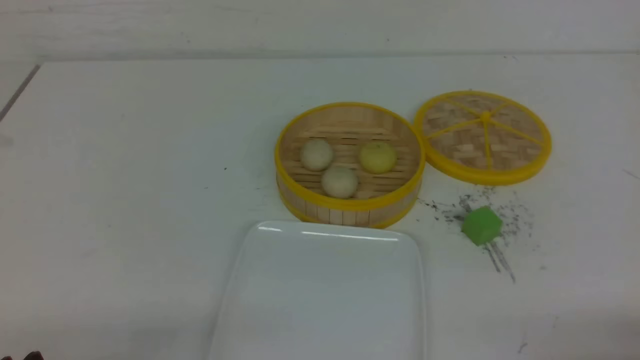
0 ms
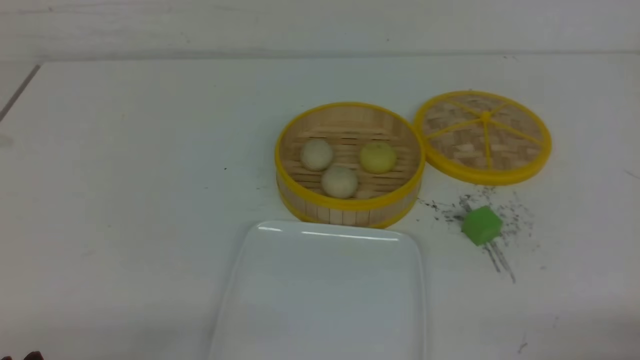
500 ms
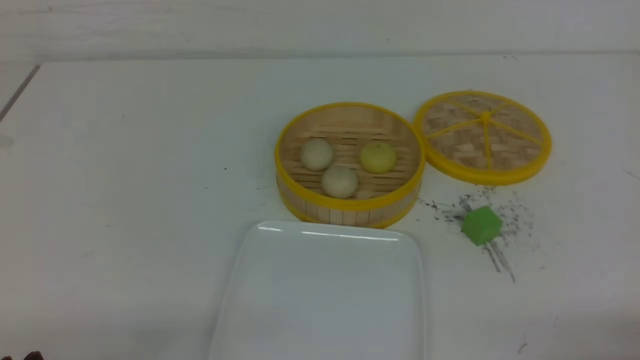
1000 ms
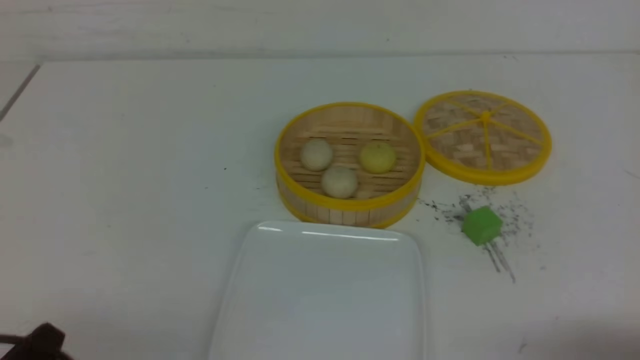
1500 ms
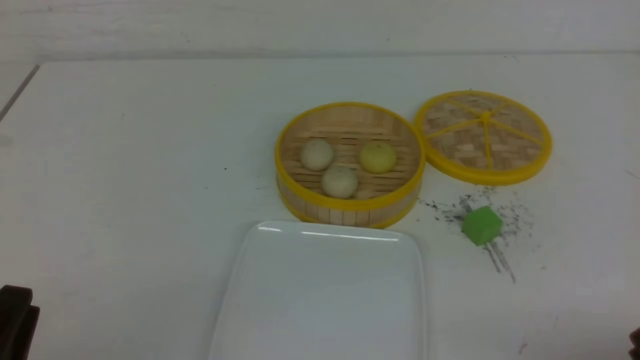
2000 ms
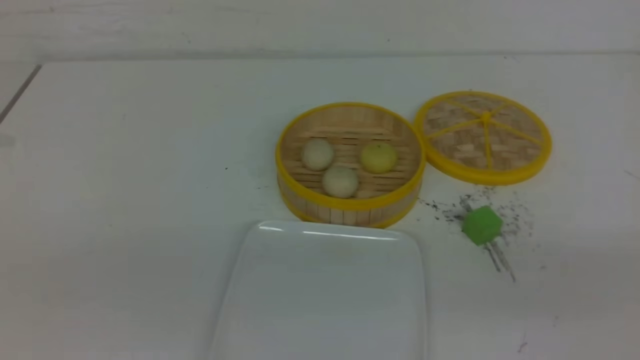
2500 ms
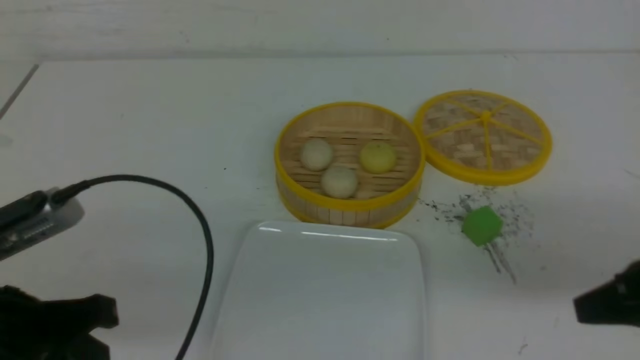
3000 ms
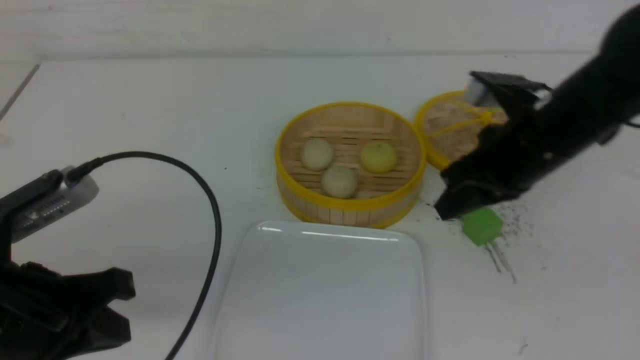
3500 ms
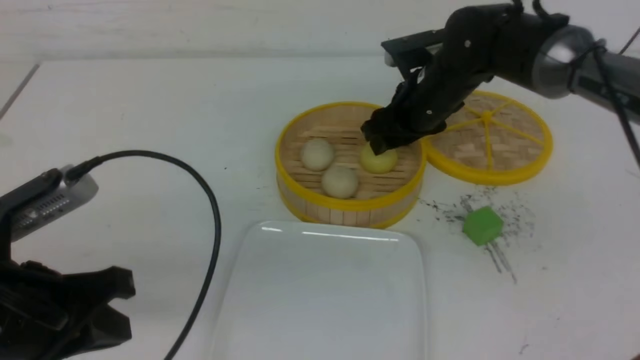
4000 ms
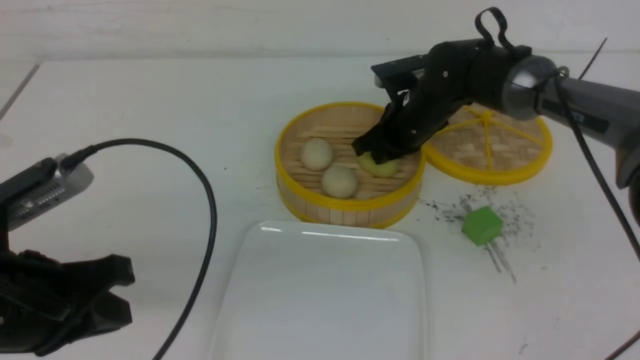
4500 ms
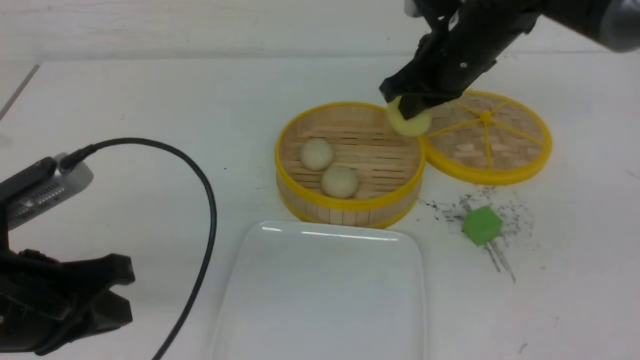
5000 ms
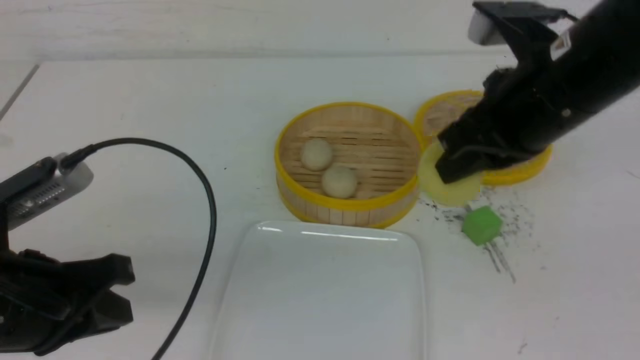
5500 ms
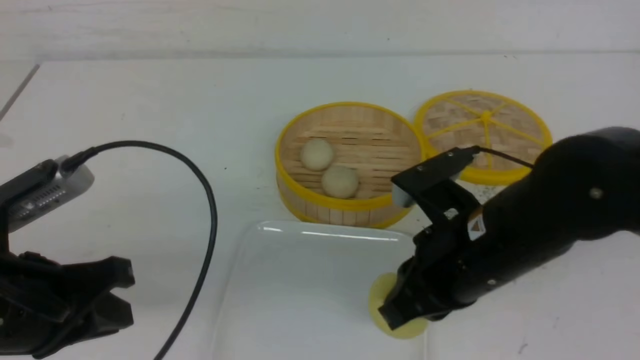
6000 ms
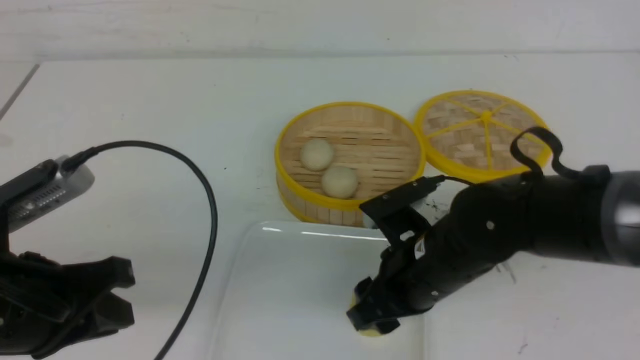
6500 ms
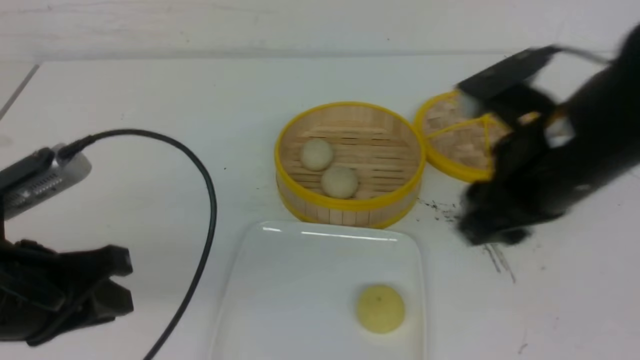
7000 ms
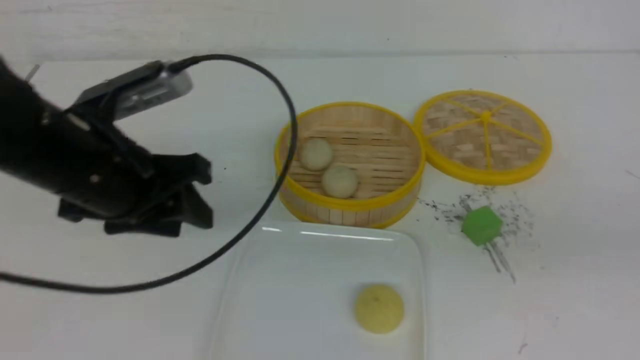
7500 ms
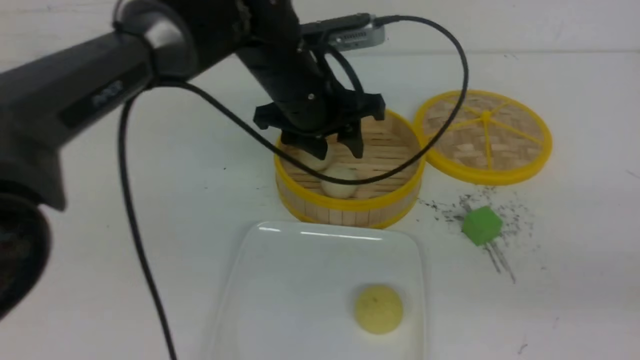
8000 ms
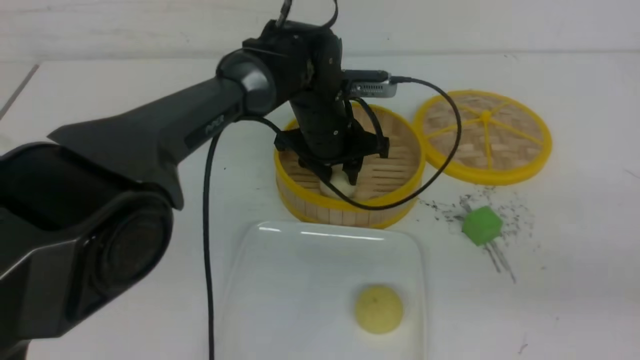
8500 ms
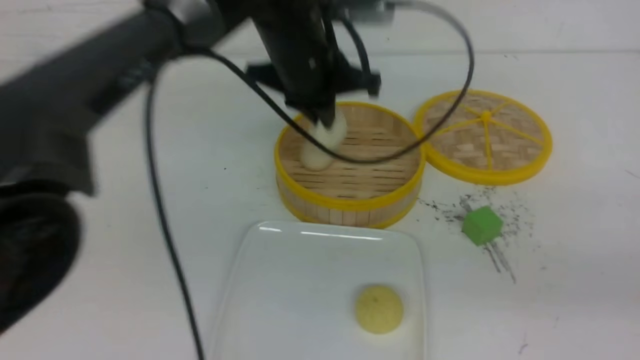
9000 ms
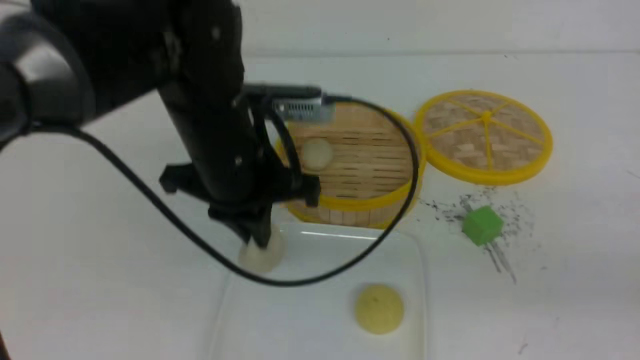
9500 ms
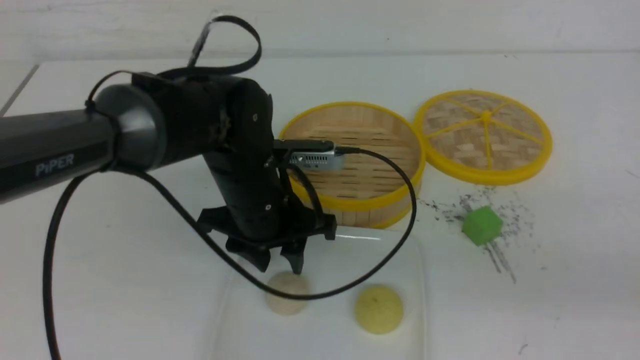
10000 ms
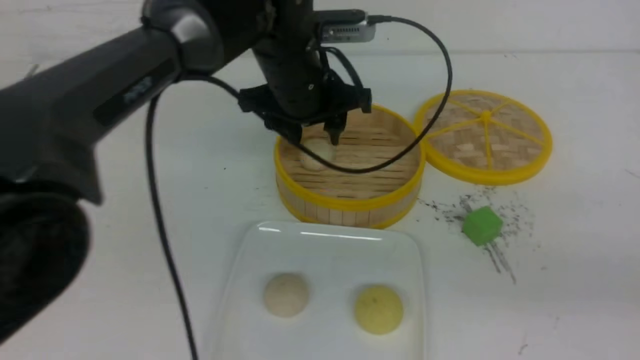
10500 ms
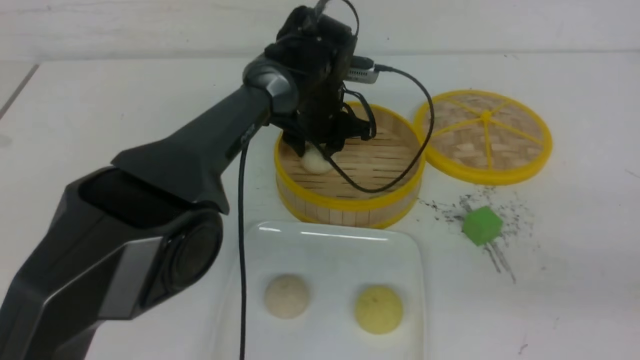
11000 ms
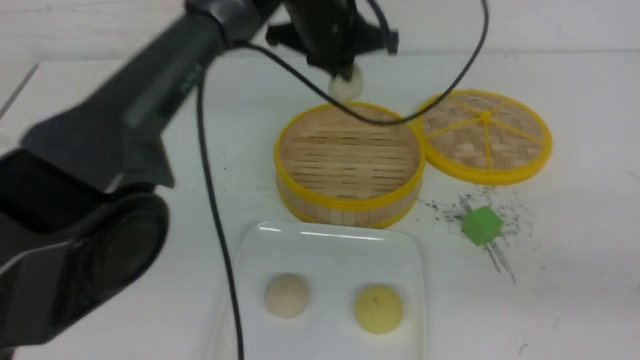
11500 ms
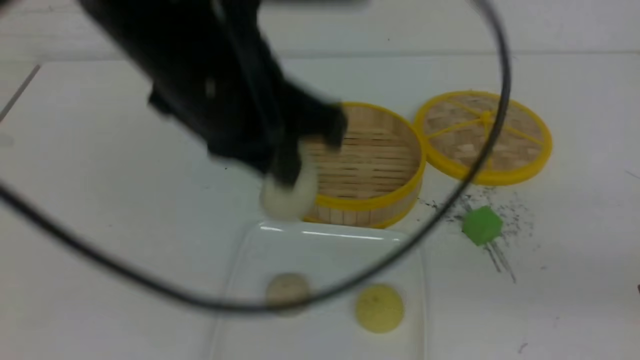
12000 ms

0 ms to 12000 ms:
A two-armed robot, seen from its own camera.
Step, 0 ms to 4500 ms: use the right arm to grab the steamed stuffed bun that is closest to it.
Step, 5000 ms to 6500 ms: use the right arm to put the steamed stuffed bun into the plate.
Step, 7000 ms to 8500 ms: use the left arm to grab the steamed stuffed bun that is closest to it.
Step, 9000 ms to 9500 ms: use the left arm to put the steamed stuffed bun into the plate.
Step, 10000 ms to 11000 ms: use the left arm to grab the steamed stuffed bun that is closest to it.
2000 ms to 4000 ms: The left gripper moves forward and upward, roughly 10 cm, and closes its fingers. Meanwhile the right gripper moves forward and to the left, approximately 40 cm, and opens up.
4000 ms to 6000 ms: The right gripper moves backward, about 20 cm, and closes.
6000 ms to 8000 ms: The left gripper shifts some 30 cm forward and to the right, and opens its fingers. The right gripper is displaced to the right and backward by about 20 cm, and opens, then closes once more.
8000 ms to 10000 ms: The left gripper is displaced backward by roughly 5 cm, and closes, then opens again.
10000 ms to 12000 ms: The left gripper travels upward by some 15 cm, goes forward and returns, roughly 15 cm each way, and closes.

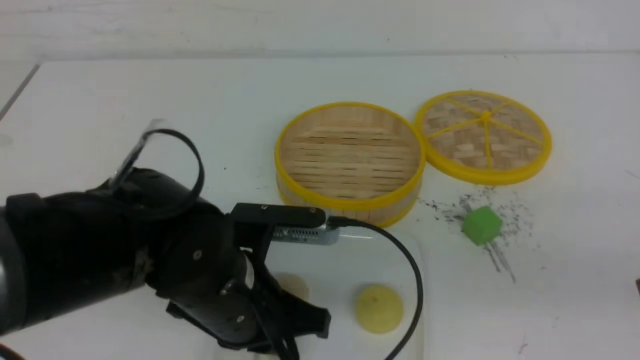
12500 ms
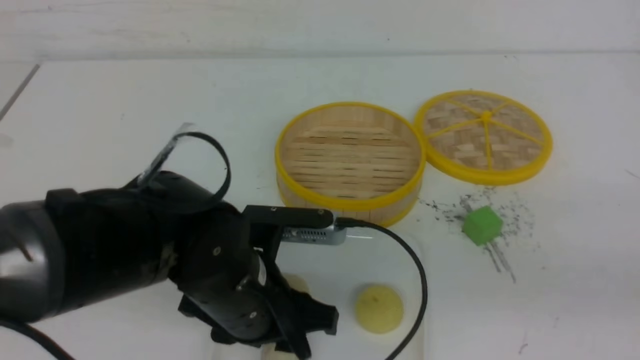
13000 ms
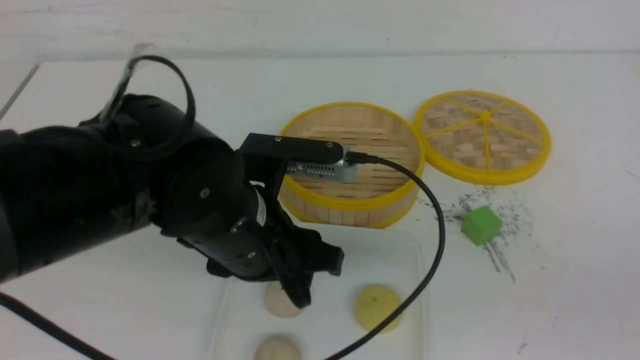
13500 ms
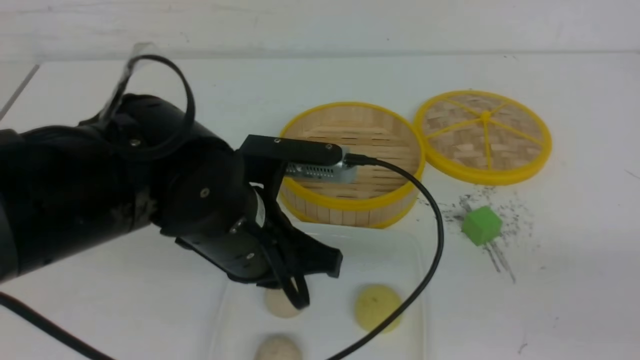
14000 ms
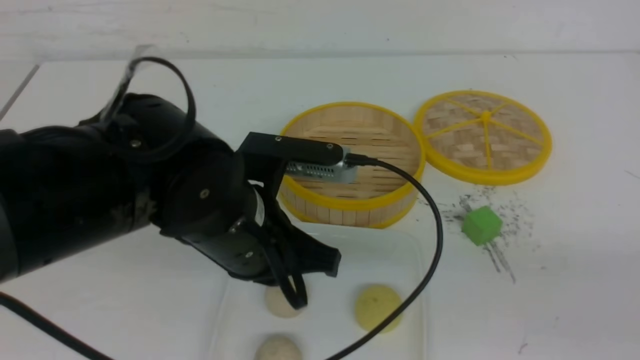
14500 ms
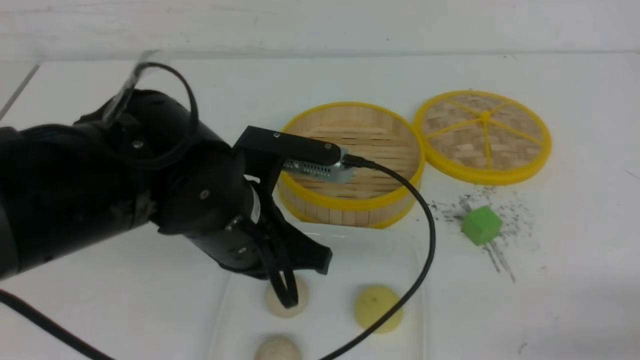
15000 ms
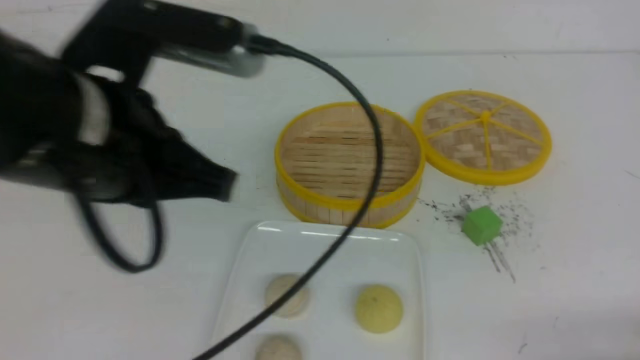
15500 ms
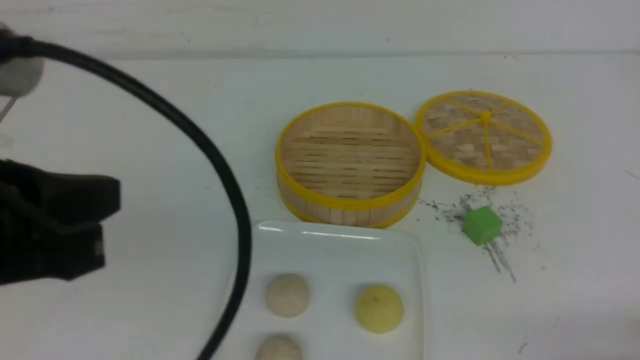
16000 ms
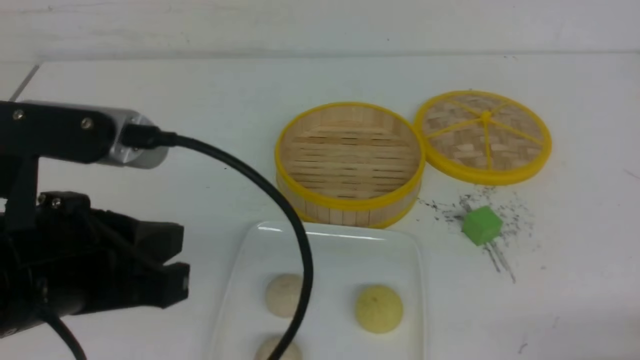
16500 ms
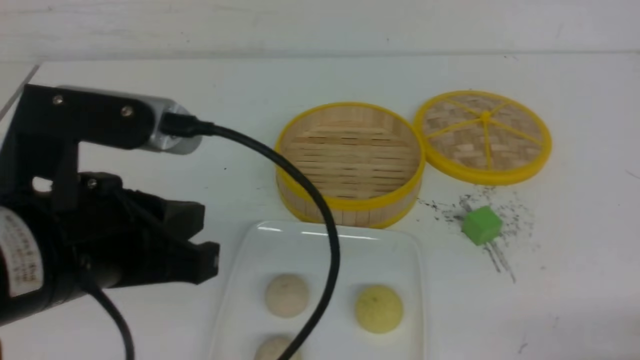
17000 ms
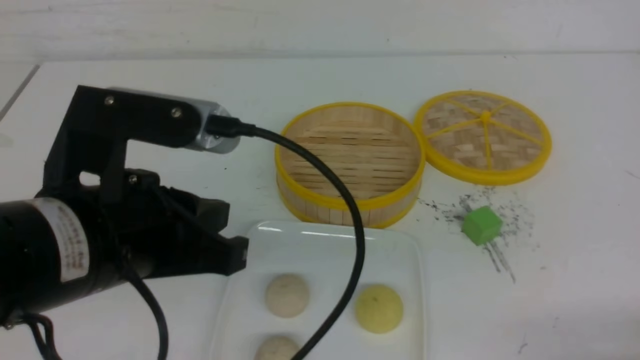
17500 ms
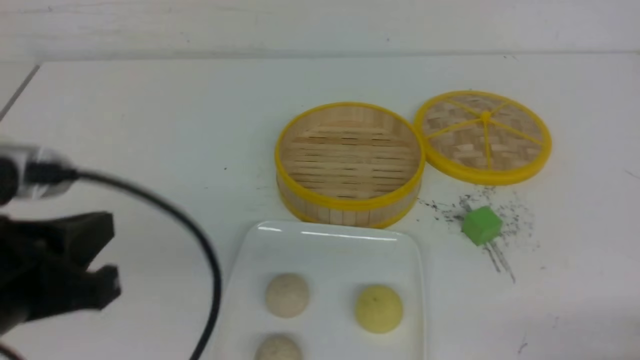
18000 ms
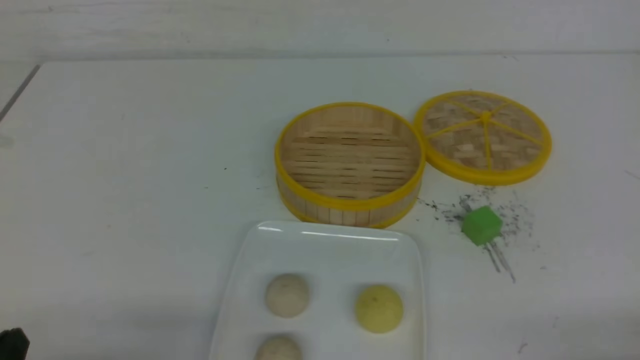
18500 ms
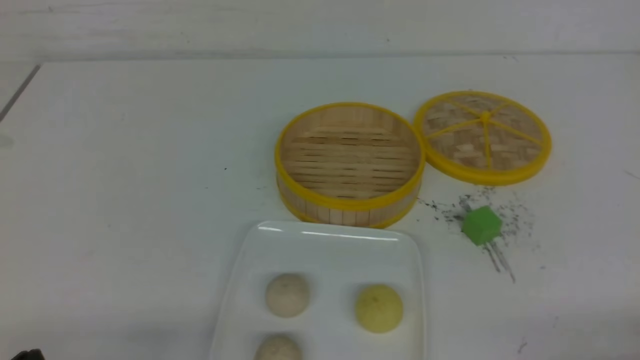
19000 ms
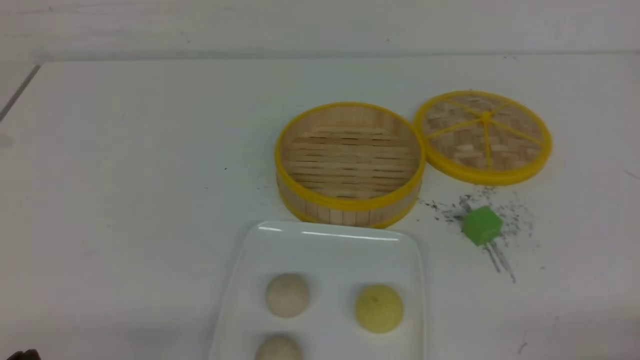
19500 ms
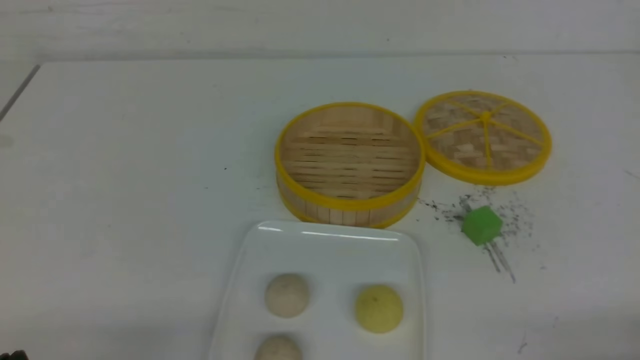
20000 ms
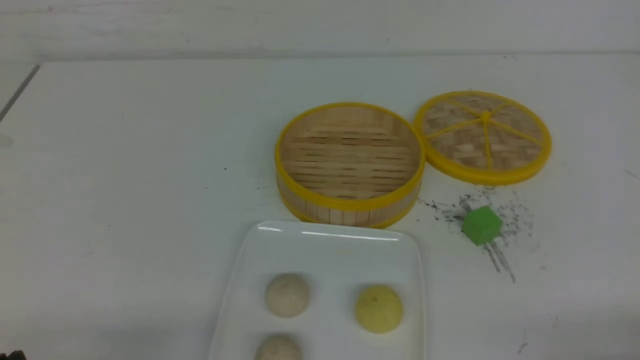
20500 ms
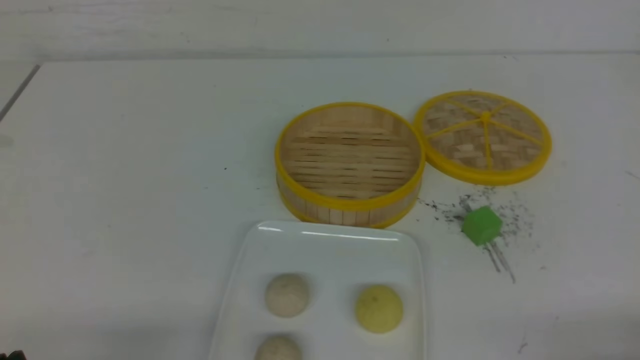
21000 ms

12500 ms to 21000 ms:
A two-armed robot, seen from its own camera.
12500 ms to 14500 ms: The right gripper moves backward, some 5 cm. Meanwhile the left gripper ends up some 5 cm from where it was, and opens and closes again.
14500 ms to 16500 ms: The left gripper is displaced to the left, backward and upward by roughly 15 cm. The right gripper heads downward, covering some 10 cm.
16500 ms to 19000 ms: The left gripper goes about 20 cm downward and to the left.
19000 ms to 21000 ms: Neither gripper changes place.
